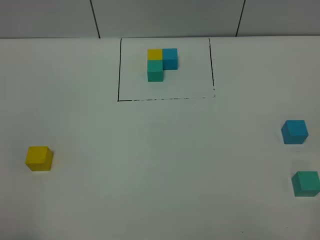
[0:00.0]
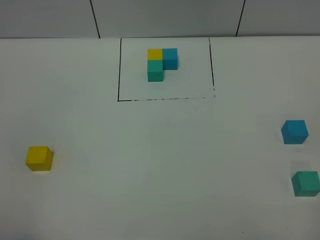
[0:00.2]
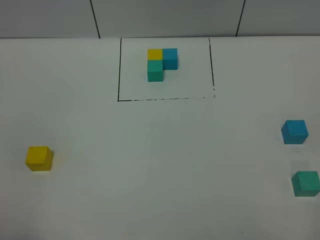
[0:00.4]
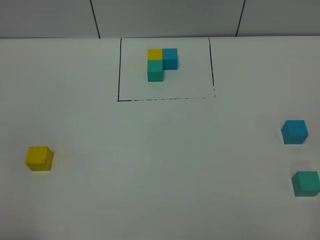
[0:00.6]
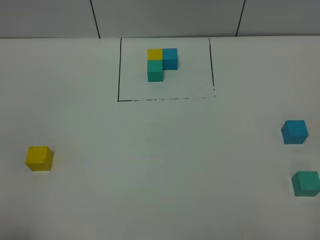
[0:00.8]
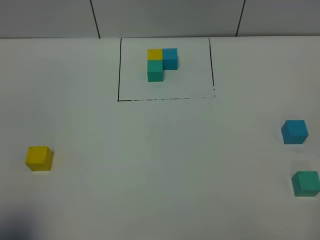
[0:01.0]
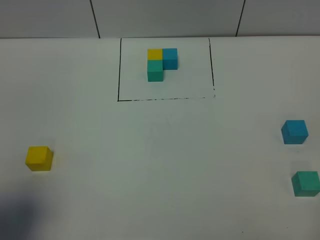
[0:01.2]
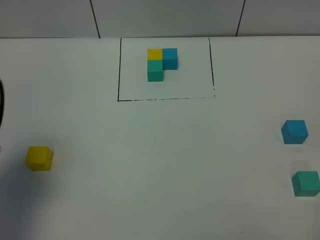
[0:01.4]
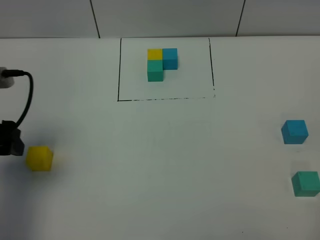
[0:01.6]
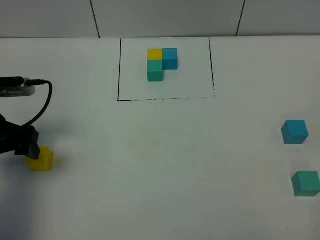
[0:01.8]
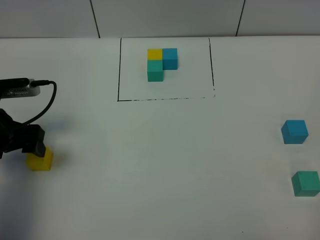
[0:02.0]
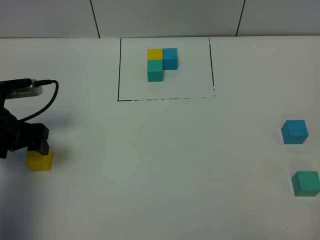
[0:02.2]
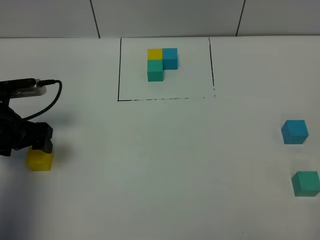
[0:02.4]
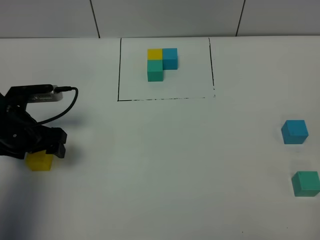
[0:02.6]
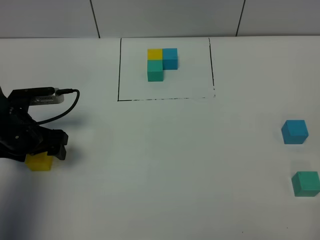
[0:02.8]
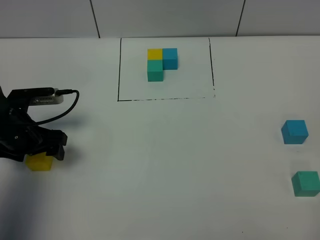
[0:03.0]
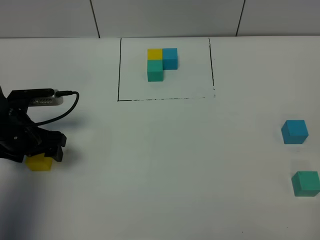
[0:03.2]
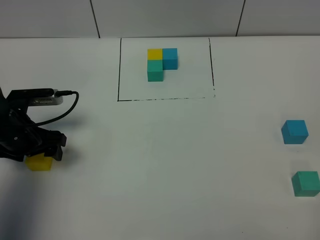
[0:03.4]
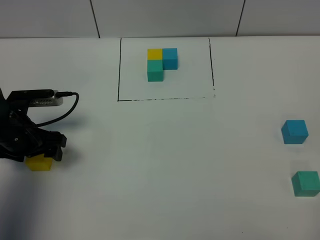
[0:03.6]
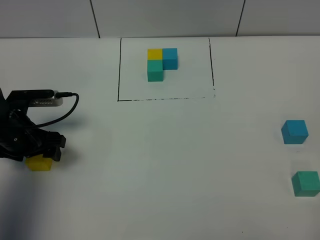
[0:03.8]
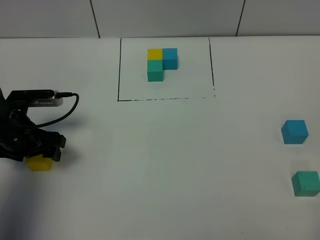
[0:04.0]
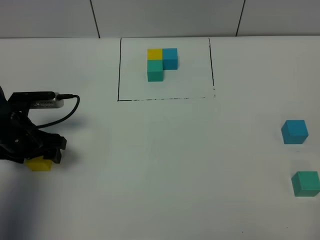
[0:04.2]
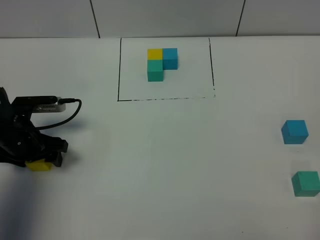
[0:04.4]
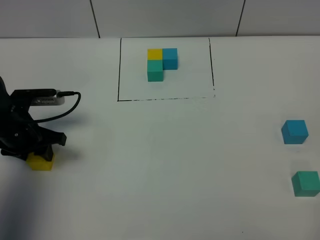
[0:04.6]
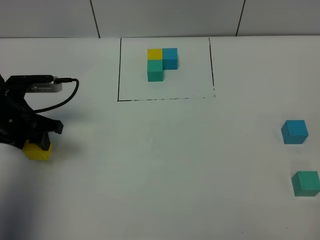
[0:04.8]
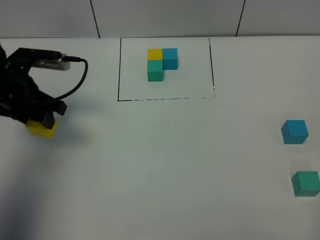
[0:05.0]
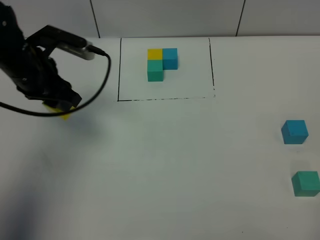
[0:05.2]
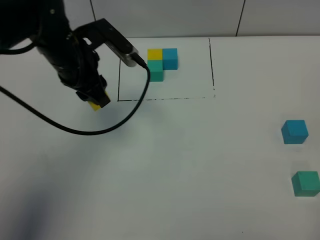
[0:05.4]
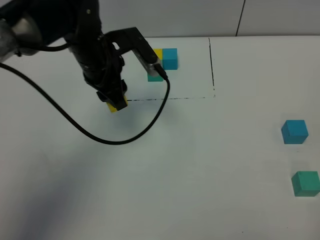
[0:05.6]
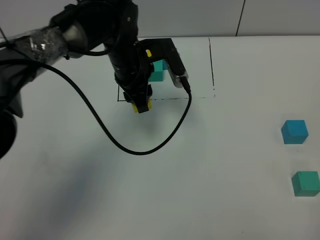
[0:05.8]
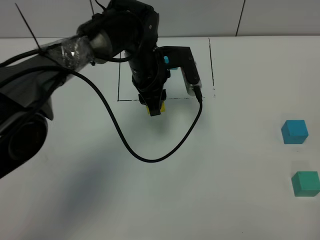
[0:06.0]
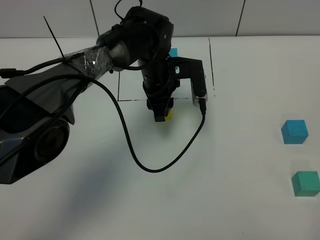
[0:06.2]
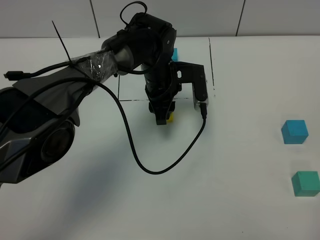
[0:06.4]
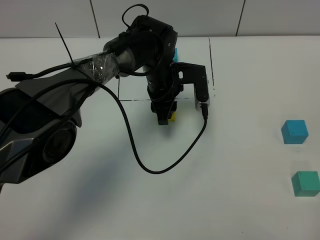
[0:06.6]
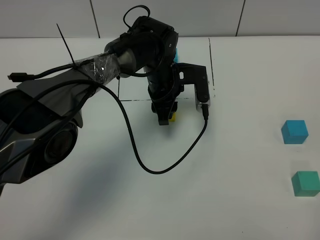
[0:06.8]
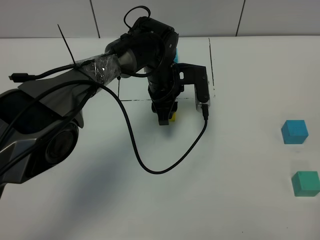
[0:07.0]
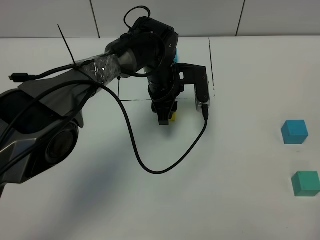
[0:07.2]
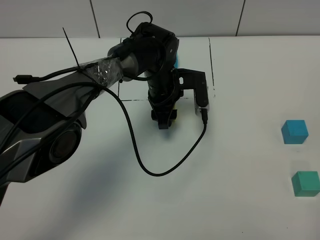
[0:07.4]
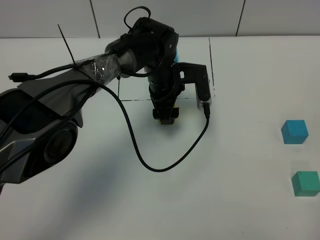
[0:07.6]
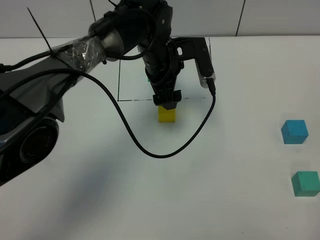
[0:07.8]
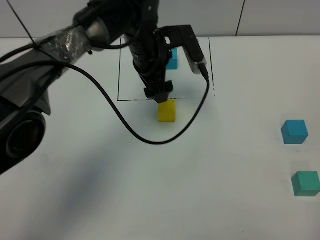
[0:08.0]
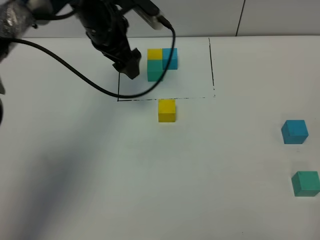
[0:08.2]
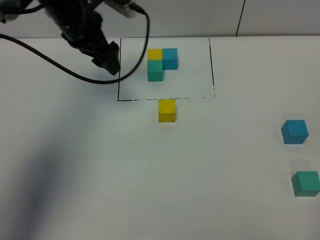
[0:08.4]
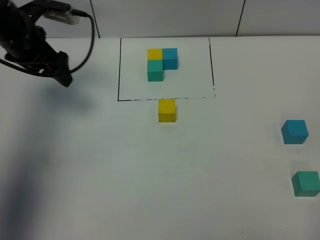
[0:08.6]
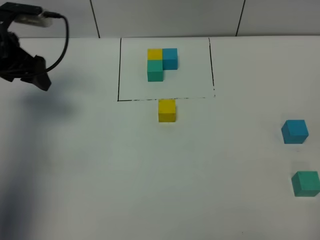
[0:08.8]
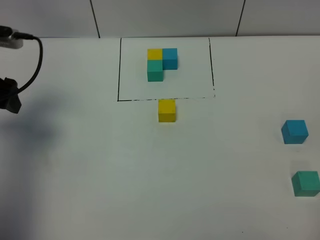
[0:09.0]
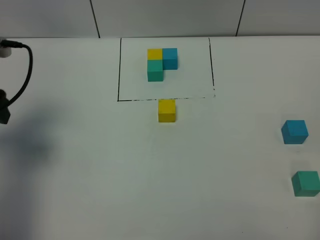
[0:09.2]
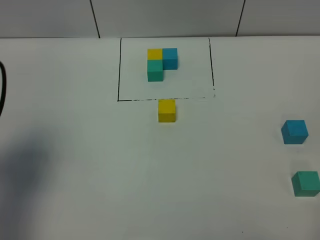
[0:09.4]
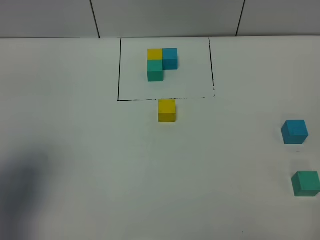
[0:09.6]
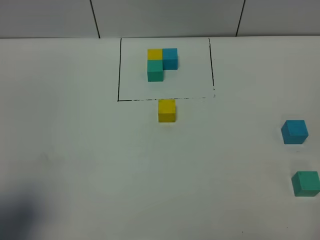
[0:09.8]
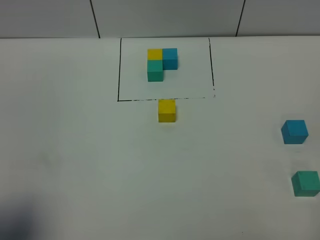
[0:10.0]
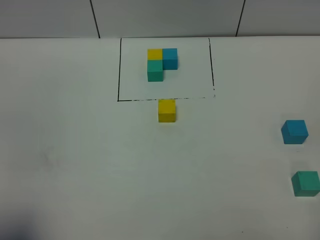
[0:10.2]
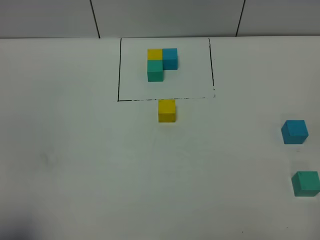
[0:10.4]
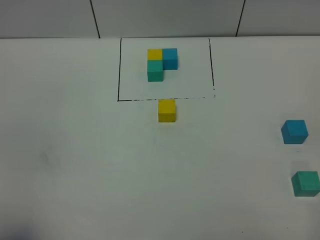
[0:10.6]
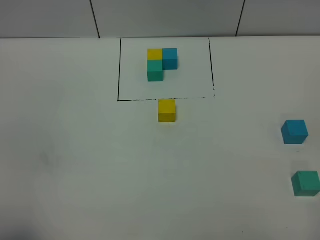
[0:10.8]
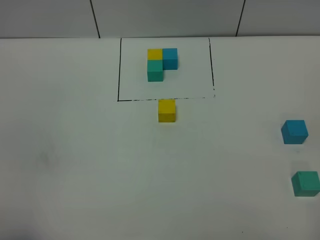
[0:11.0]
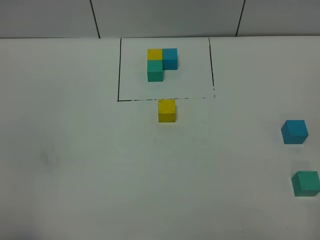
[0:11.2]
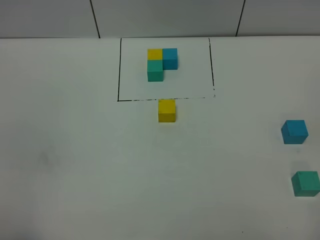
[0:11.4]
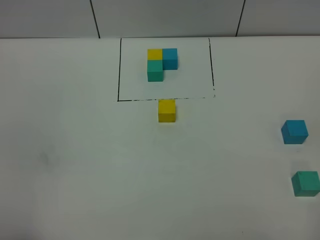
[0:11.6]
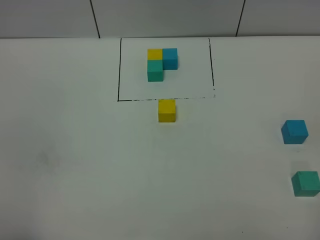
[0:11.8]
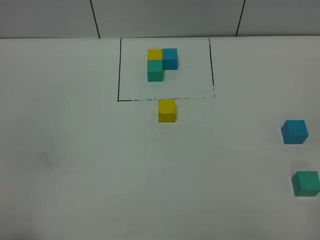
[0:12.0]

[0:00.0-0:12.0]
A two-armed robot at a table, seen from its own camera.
Task of the whole recording: According to the building block template in front, assemble the scattered blocks together.
Step, 0:00.0 to 0:07.4: Put the yellow build block in the center of the table.
0:00.0 to 0:01.6: The left gripper is displaced forward by some 25 cm.
0:01.6 to 0:03.0: The left gripper moves downward and forward, some 10 cm.
0:03.0 to 0:04.4: The grippers stay close to where they were, moving slightly.
0:04.4 to 0:06.0: The left gripper moves to the right and forward, about 30 cm, and closes up.
0:06.0 to 0:07.6: The left gripper opens.
0:07.6 to 0:09.0: The left gripper travels to the left by approximately 30 cm.
0:09.0 to 0:10.4: The left gripper goes about 30 cm backward.

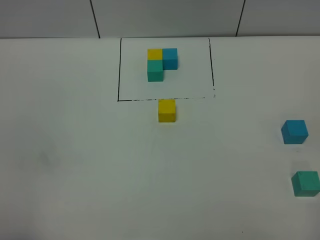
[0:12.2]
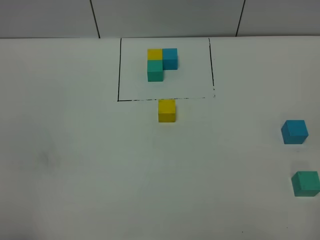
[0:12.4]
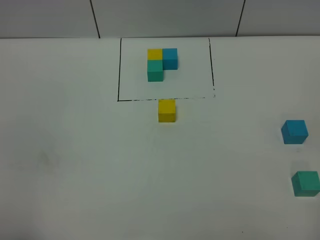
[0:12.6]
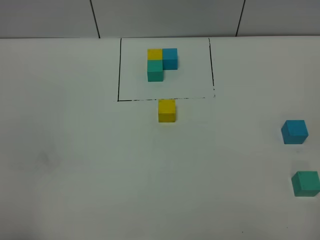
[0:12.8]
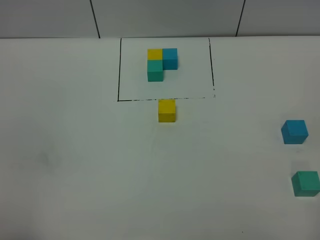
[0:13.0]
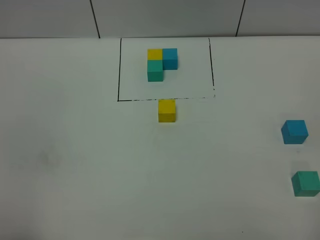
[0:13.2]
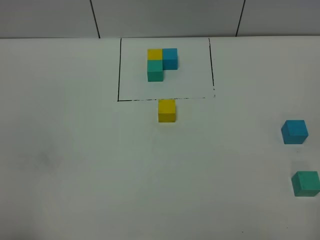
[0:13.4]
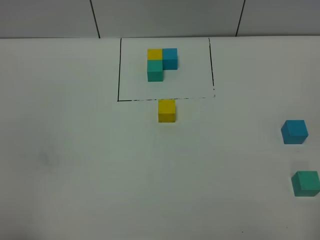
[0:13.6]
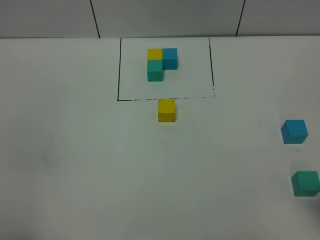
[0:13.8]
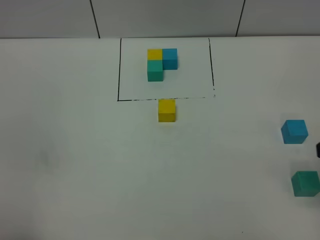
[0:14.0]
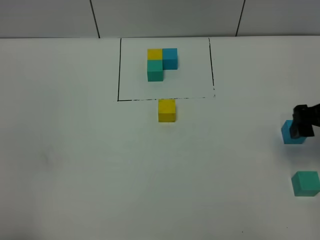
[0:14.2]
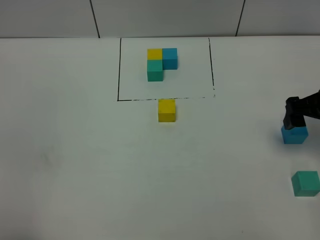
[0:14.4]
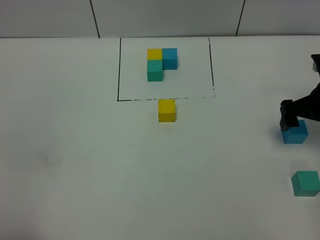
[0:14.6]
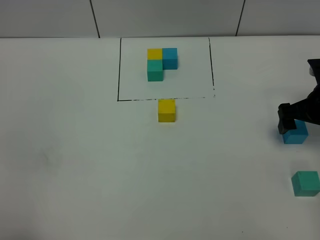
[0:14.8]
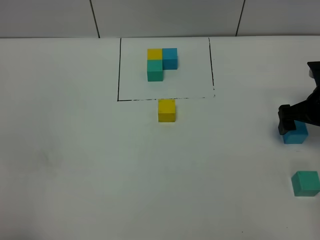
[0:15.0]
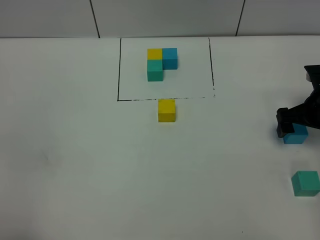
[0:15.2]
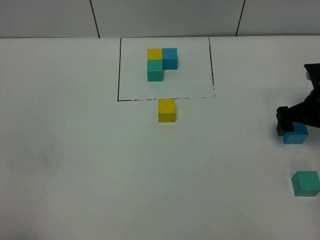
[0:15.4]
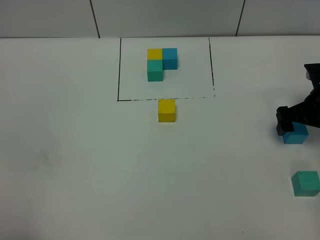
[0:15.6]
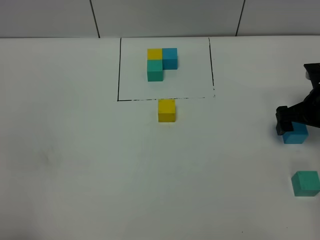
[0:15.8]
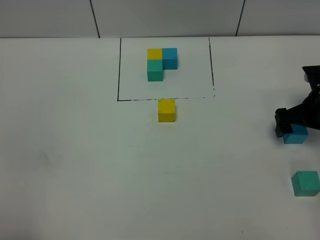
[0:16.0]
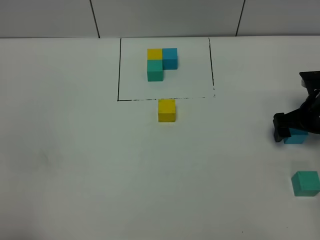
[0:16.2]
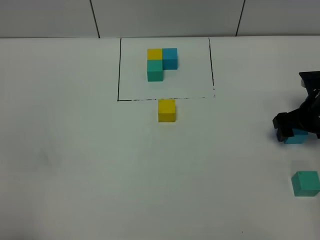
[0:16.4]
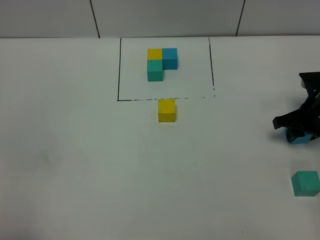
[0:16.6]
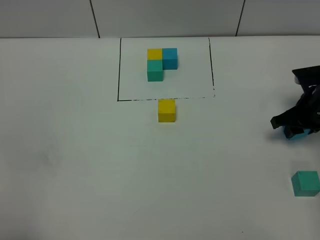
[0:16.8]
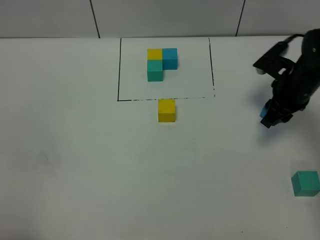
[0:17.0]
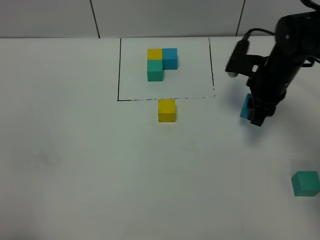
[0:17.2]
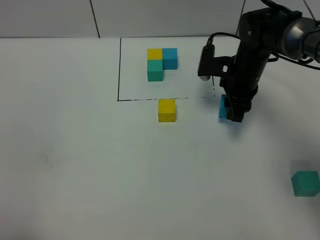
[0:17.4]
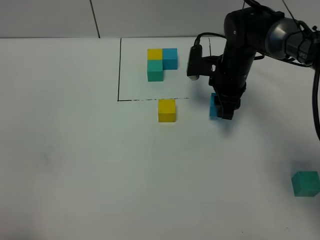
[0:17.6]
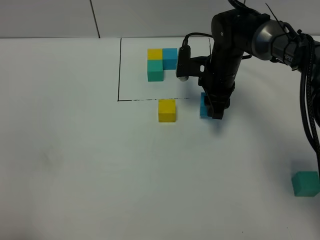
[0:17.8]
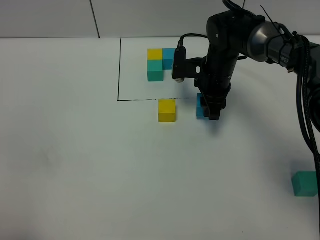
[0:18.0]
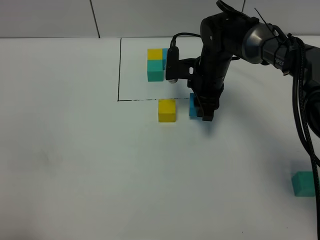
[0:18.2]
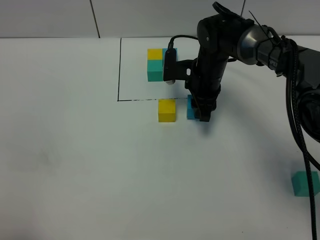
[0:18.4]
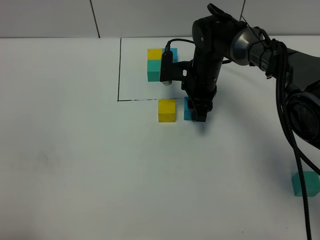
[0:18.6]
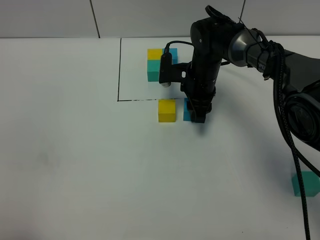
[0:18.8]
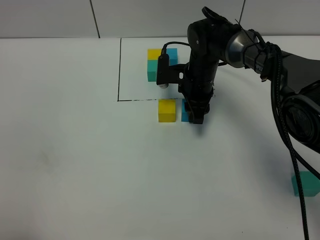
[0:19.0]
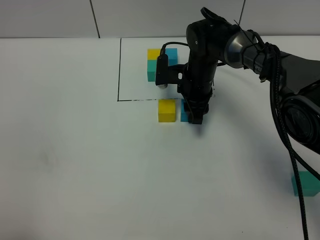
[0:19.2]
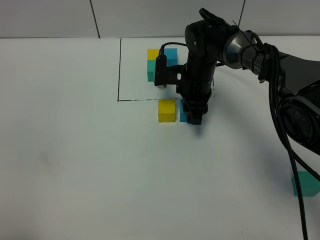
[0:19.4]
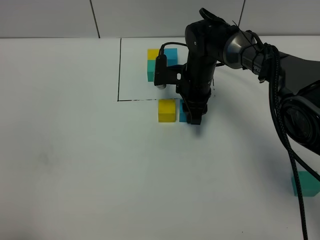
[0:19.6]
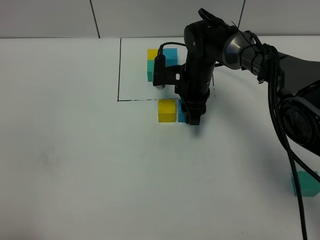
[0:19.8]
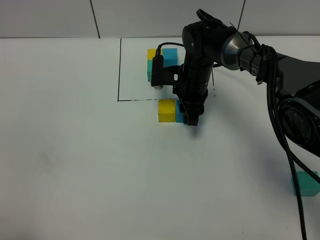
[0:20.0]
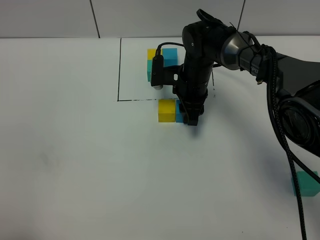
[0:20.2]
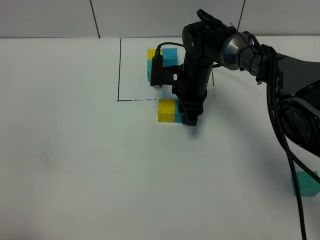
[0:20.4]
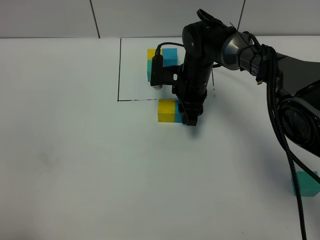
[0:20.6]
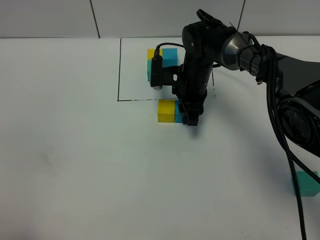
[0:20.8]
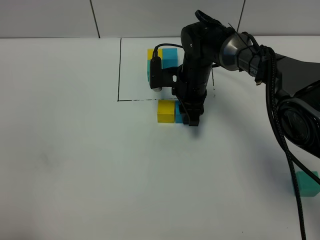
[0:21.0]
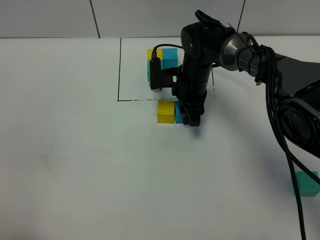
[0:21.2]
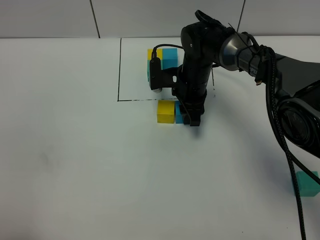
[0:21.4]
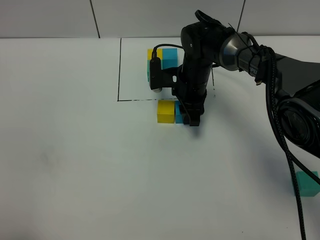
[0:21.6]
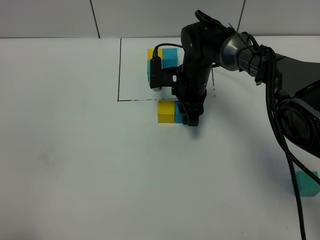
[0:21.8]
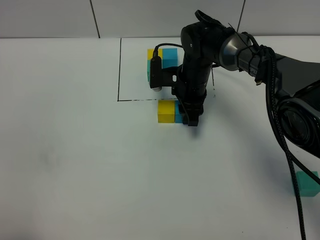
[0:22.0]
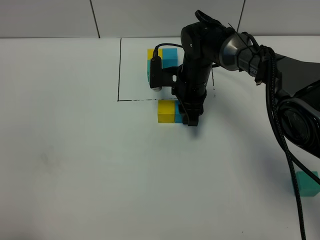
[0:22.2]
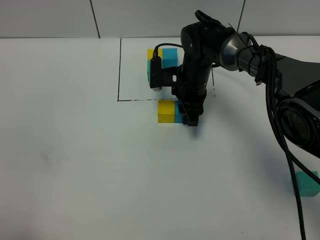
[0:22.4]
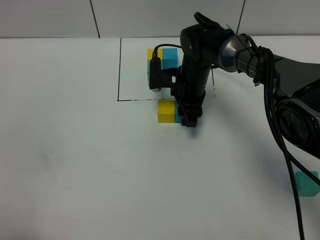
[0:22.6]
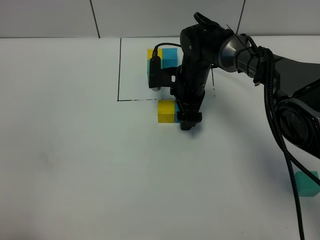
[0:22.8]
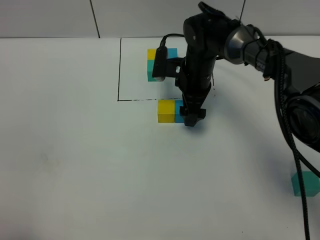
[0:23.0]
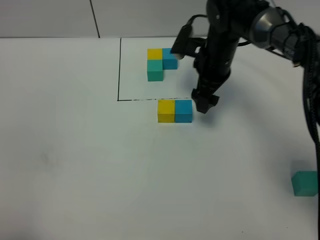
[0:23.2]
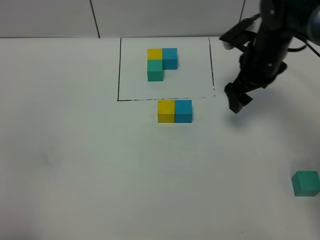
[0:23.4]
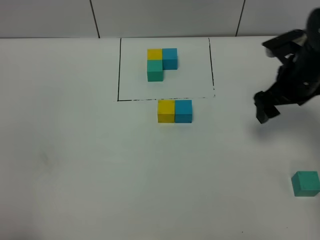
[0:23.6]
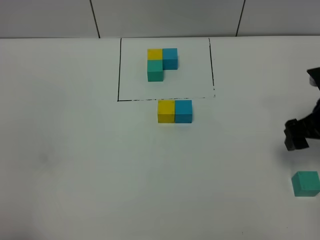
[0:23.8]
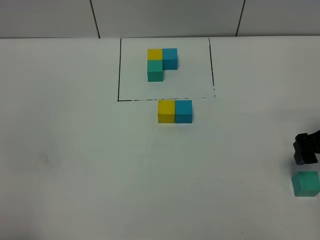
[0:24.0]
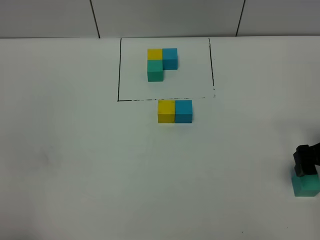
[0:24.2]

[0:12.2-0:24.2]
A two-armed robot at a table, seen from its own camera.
Task of the whole recording: According to the building block template in front, assemble the scattered blocks together.
Step, 0:12.2 to 0:22.8: Put the blue build block on the right of the yellow build block.
0:13.8 to 0:15.2: The right gripper moves forward and downward, some 25 cm.
0:15.2 to 0:16.6: The right gripper closes up.
0:16.6 to 0:18.2: The right gripper travels to the left and forward by about 25 cm.
0:18.2 to 0:19.8: The grippers stay close to where they were, moving slightly.
0:19.8 to 0:22.6: Both grippers stay about where they are.
0:22.6 to 0:24.2: The right gripper travels to the right and backward by about 30 cm, and opens its fingers.
